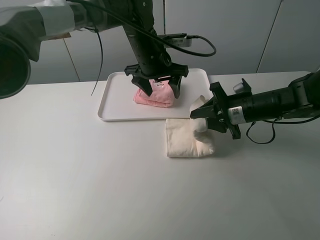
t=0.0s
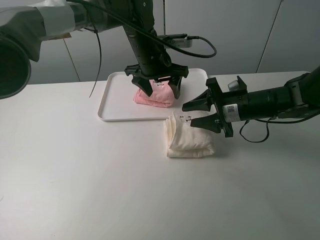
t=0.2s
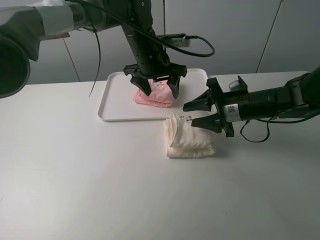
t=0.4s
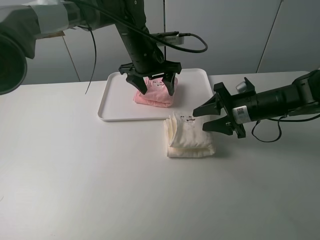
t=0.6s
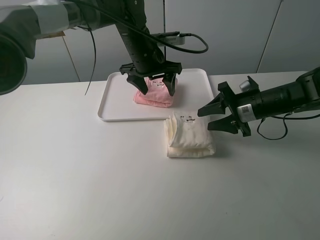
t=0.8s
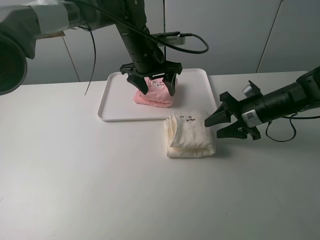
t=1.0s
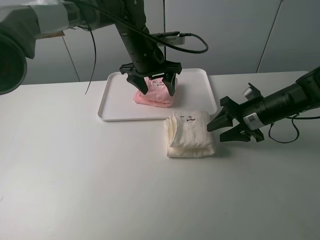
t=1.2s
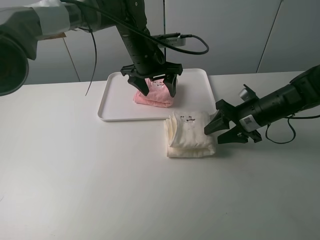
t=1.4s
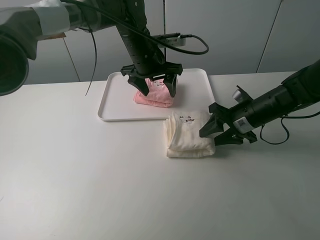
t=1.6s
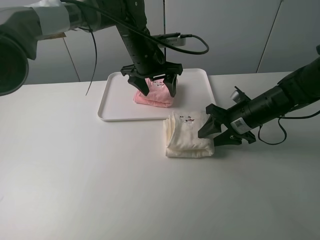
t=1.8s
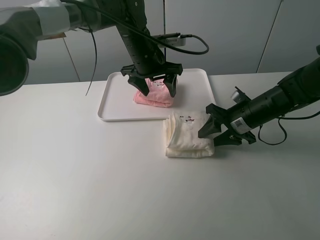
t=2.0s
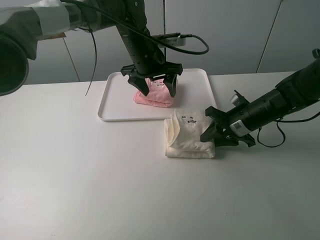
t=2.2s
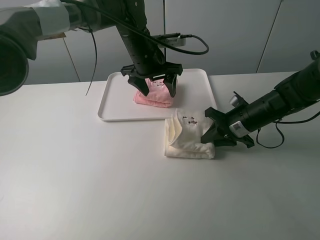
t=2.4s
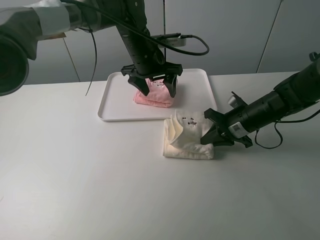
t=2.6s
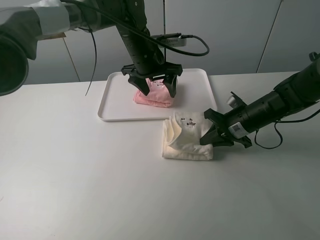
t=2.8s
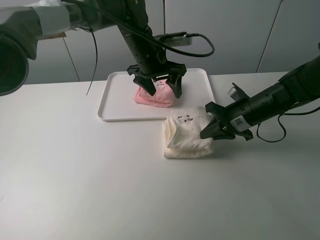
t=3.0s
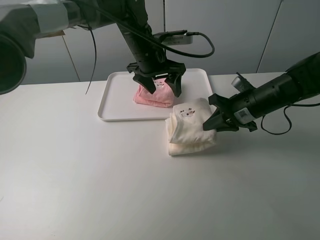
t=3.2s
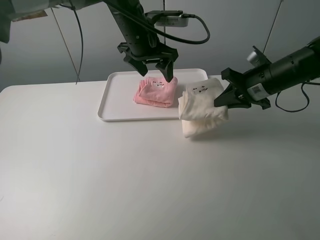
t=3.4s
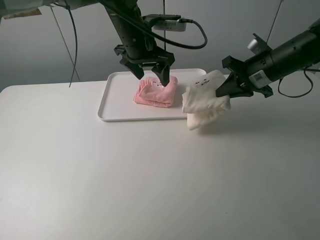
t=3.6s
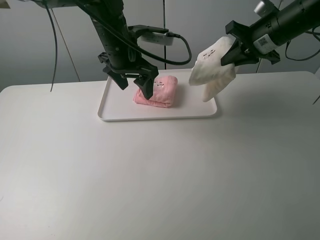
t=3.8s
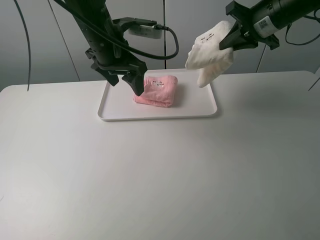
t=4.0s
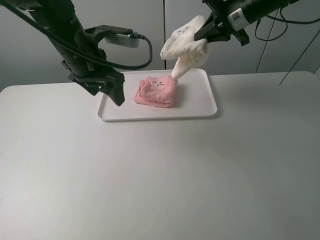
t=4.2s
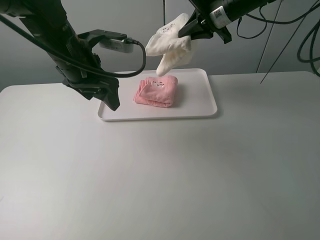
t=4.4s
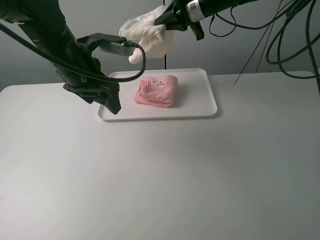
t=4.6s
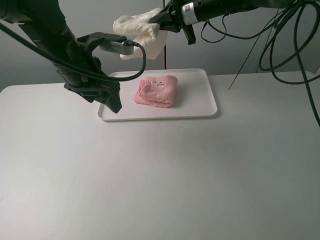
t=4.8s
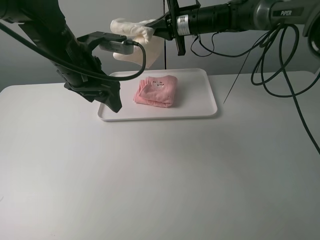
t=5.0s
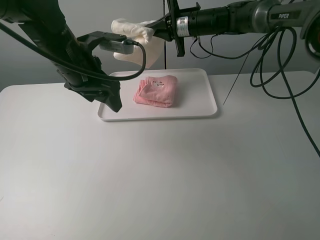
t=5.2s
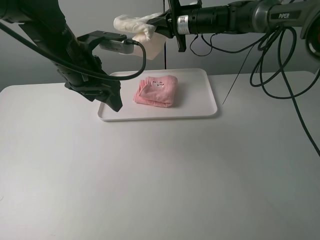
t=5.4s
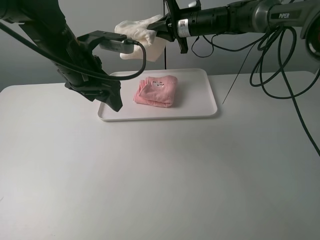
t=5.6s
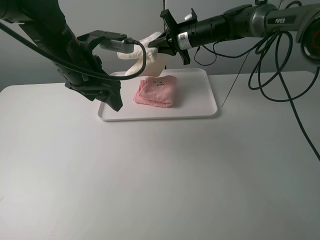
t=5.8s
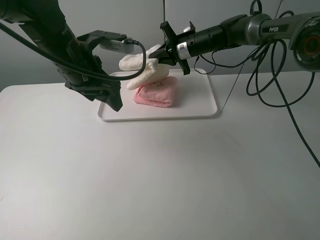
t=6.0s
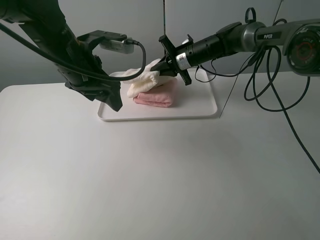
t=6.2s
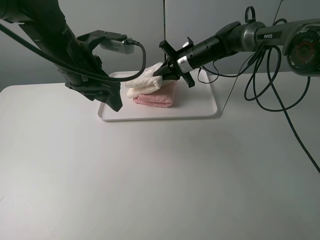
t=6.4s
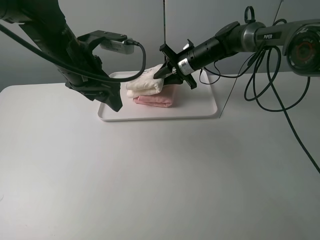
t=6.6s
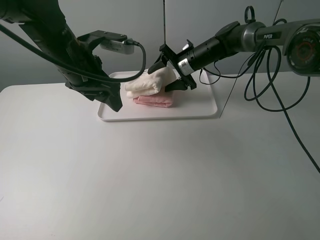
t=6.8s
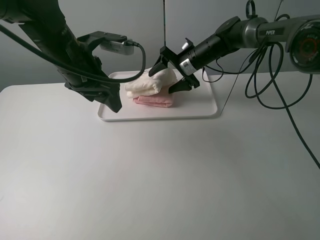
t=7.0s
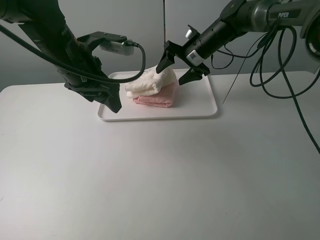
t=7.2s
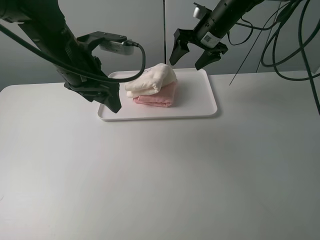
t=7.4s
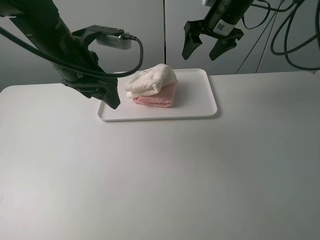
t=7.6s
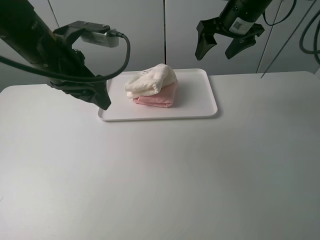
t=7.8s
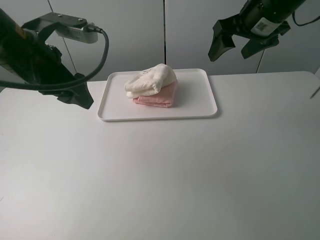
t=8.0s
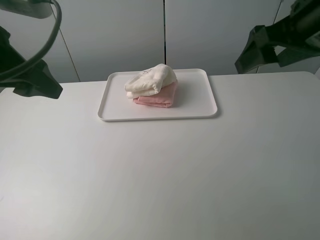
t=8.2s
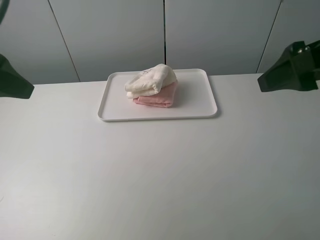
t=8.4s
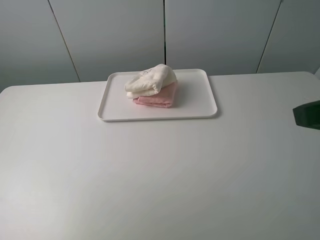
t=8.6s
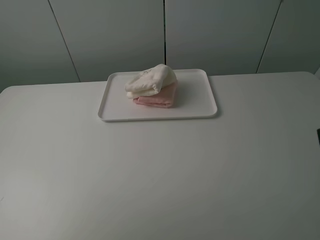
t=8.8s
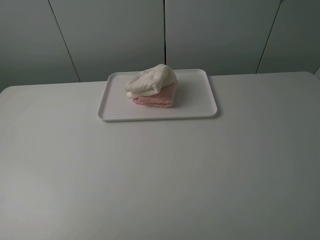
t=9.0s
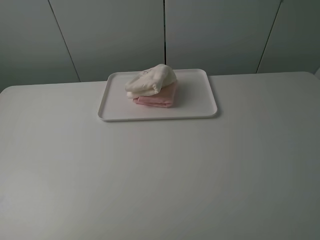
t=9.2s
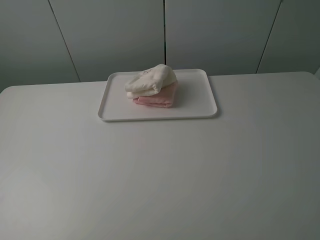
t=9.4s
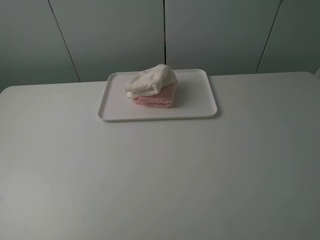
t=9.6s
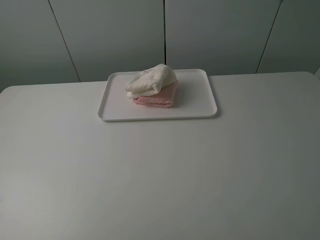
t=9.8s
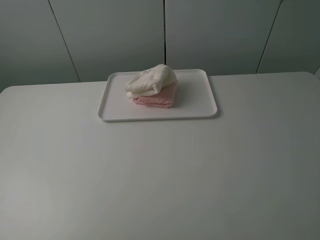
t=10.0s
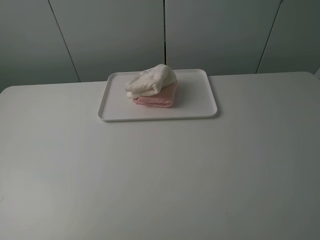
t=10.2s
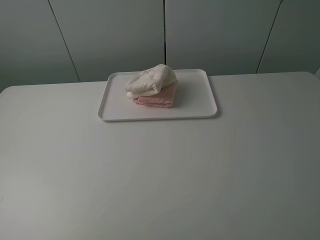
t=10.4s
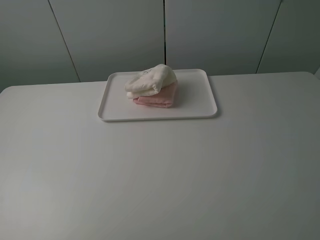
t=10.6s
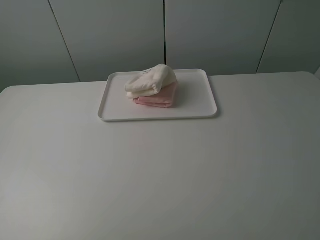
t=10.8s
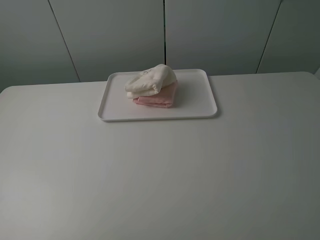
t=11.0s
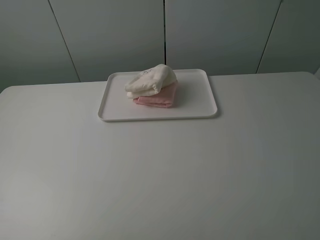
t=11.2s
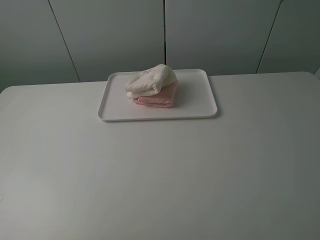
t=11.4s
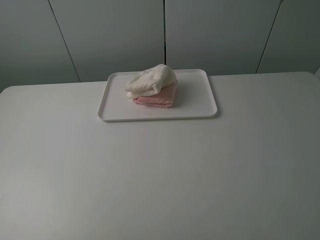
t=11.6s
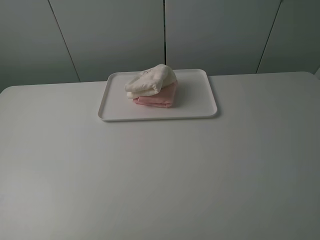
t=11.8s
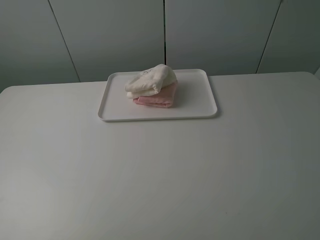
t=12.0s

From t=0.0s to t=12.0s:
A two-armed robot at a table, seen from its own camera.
Task of the whole recording: fold one of the towels by two grippers and place it on the tray,then fold another towel by two grippers and place it on the folded towel.
Step, from t=0.6s to t=2.4s: Grasp the white towel with the right gripper.
Step, from t=2.6s to t=7.0s: Place the white towel on the pink towel with the right gripper.
From t=1.6s to t=3.0s: The right gripper closes its fingers.
From t=3.0s to t=4.4s: The right gripper goes approximately 20 cm upward and forward; the left gripper heads to the left and backward, covering roughly 15 cm.
From t=4.4s to t=6.0s: The right gripper shifts roughly 15 cm downward and forward.
From t=6.0s to t=7.6s: The right gripper is displaced upward, to the right and backward by approximately 15 cm, and opens.
From t=7.6s to t=9.0s: The right gripper is displaced backward by about 40 cm. The left gripper is displaced backward and to the left by about 35 cm.

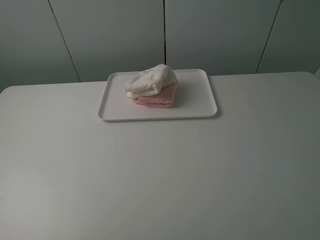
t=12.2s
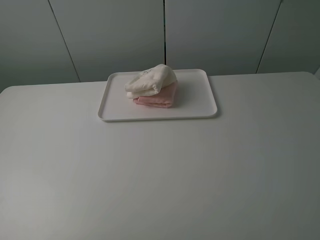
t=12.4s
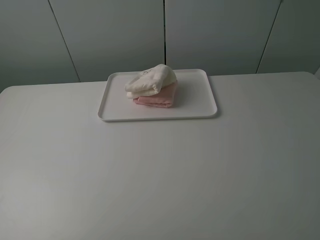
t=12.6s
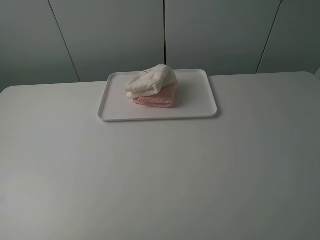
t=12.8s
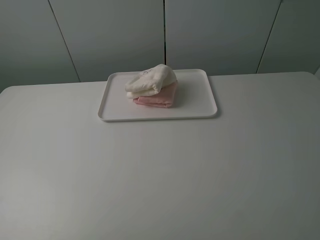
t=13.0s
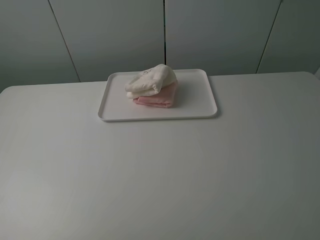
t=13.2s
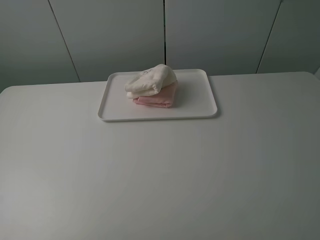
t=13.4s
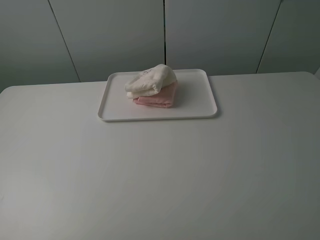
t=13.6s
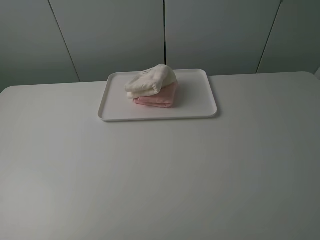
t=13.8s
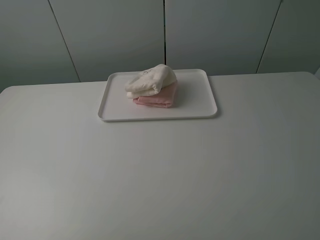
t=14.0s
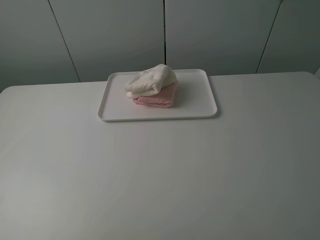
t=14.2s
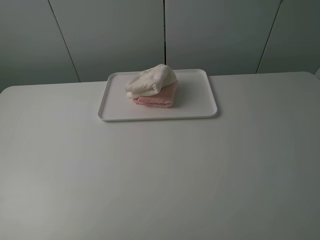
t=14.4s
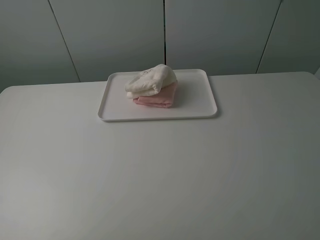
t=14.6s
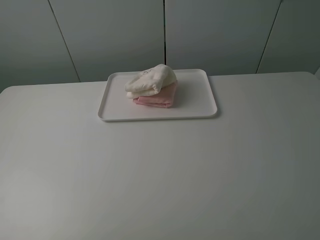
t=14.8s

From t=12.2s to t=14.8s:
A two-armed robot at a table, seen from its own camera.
Task of the whole recording: fold one of the towels by two grippers and place it on the tray,then fold another towel by two grippers and place it on the folded towel.
From t=13.4s to t=14.8s: Neither gripper changes place.
